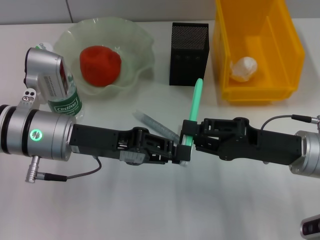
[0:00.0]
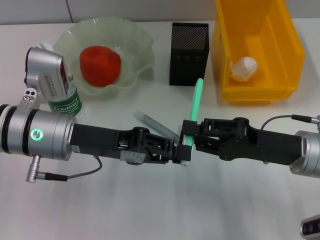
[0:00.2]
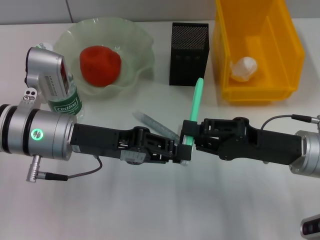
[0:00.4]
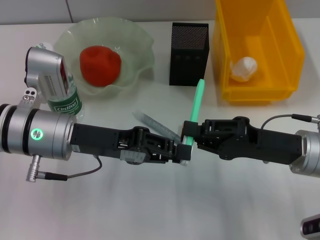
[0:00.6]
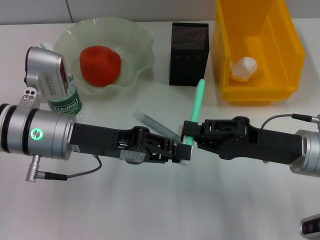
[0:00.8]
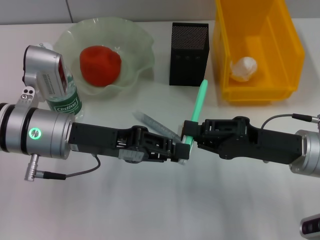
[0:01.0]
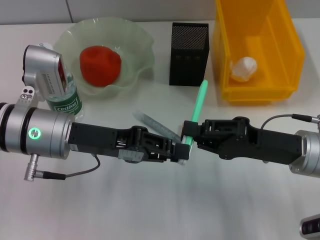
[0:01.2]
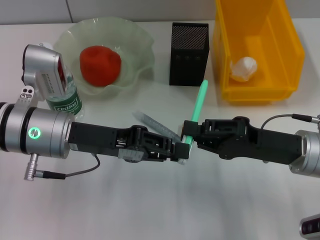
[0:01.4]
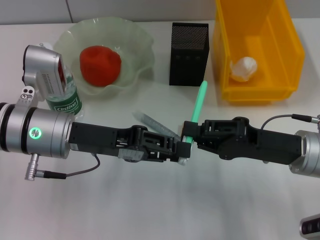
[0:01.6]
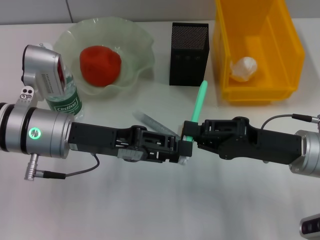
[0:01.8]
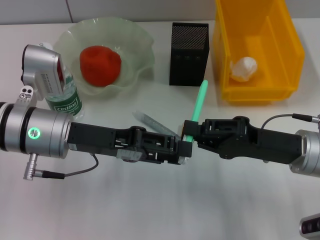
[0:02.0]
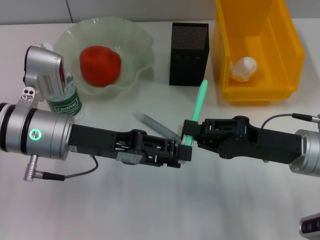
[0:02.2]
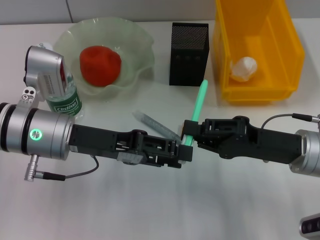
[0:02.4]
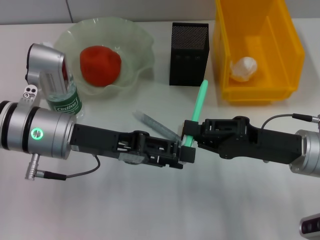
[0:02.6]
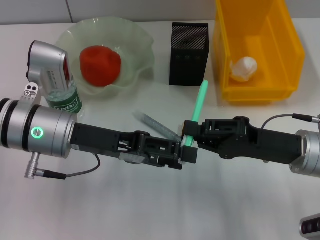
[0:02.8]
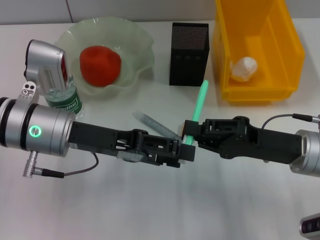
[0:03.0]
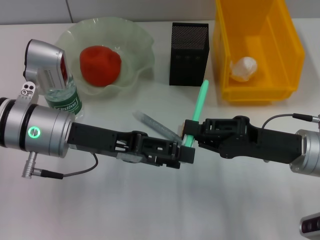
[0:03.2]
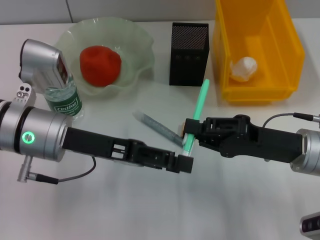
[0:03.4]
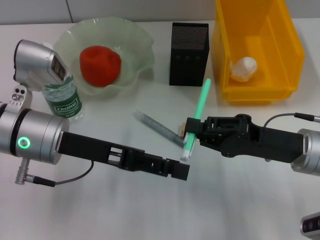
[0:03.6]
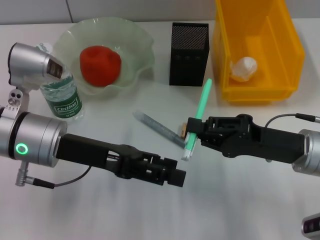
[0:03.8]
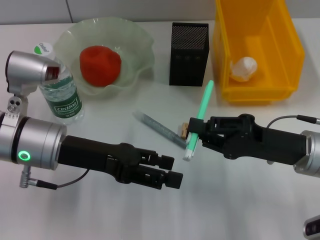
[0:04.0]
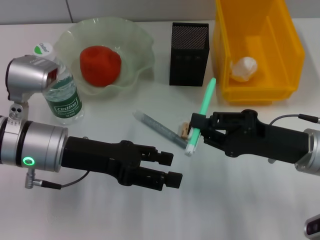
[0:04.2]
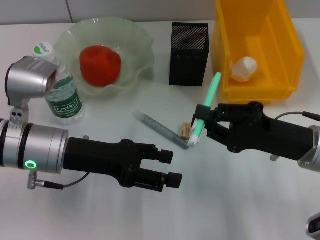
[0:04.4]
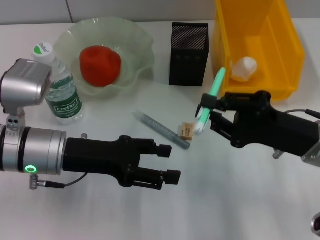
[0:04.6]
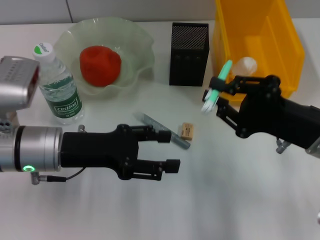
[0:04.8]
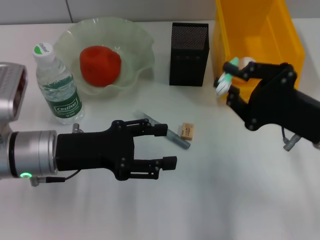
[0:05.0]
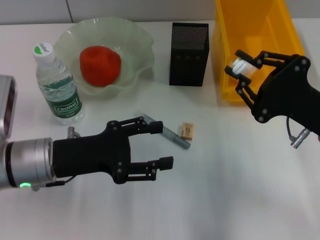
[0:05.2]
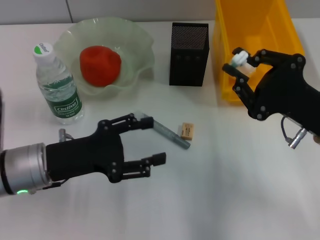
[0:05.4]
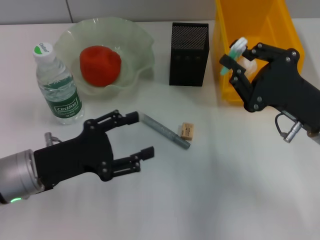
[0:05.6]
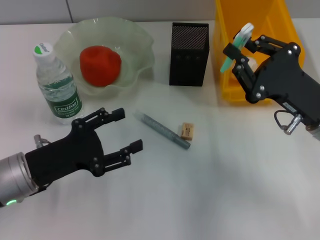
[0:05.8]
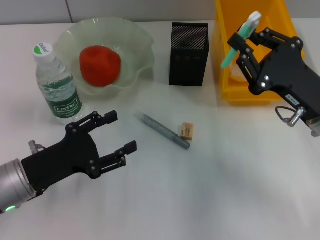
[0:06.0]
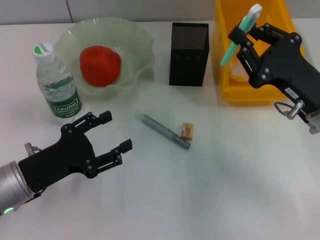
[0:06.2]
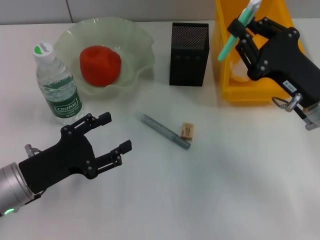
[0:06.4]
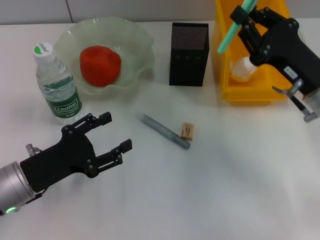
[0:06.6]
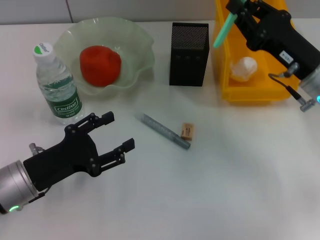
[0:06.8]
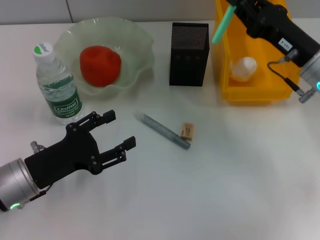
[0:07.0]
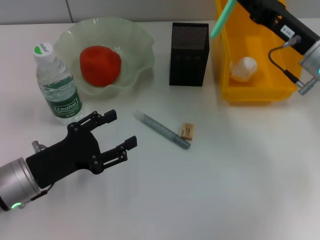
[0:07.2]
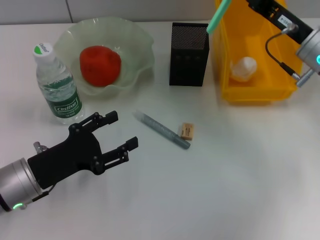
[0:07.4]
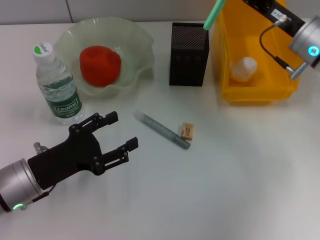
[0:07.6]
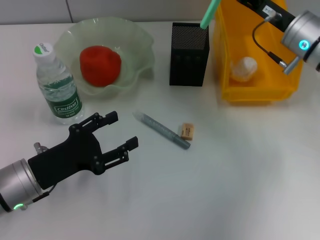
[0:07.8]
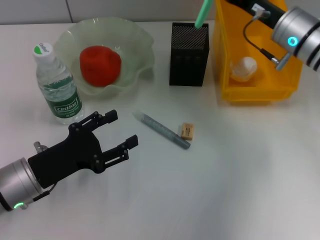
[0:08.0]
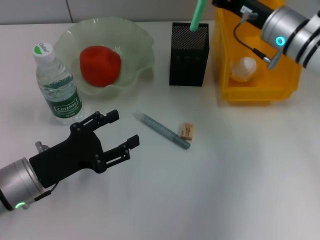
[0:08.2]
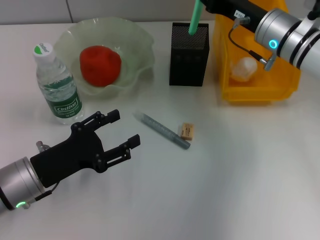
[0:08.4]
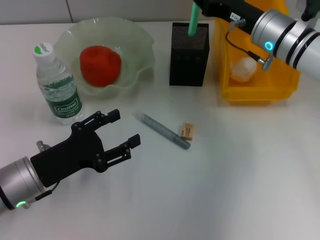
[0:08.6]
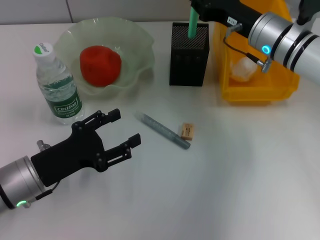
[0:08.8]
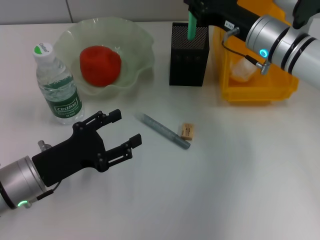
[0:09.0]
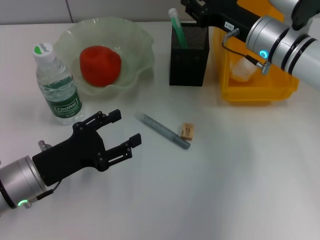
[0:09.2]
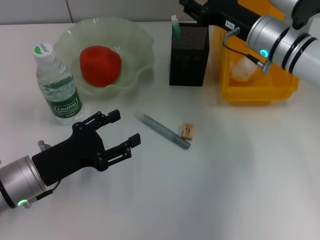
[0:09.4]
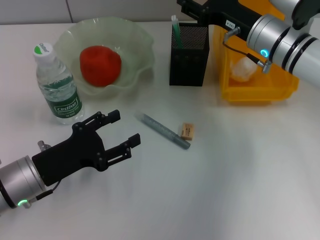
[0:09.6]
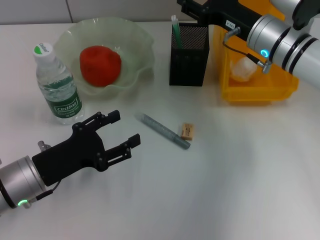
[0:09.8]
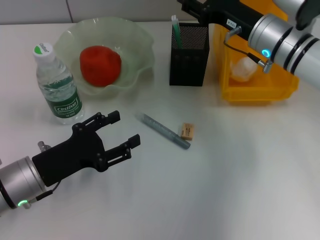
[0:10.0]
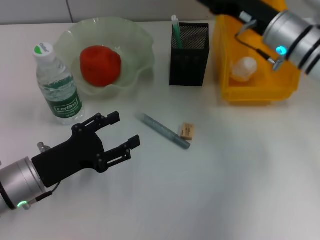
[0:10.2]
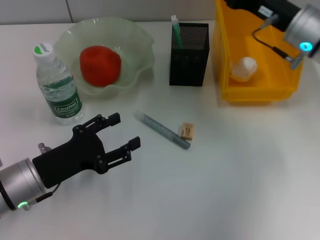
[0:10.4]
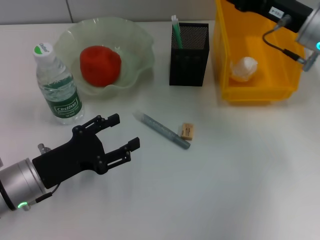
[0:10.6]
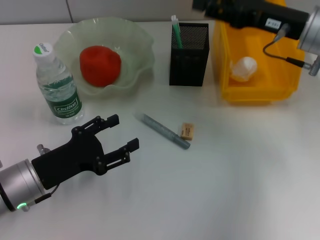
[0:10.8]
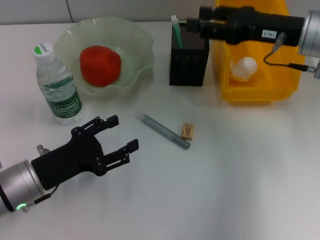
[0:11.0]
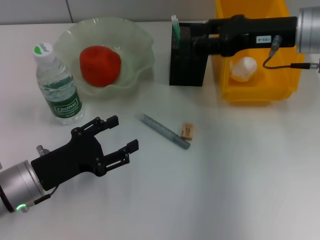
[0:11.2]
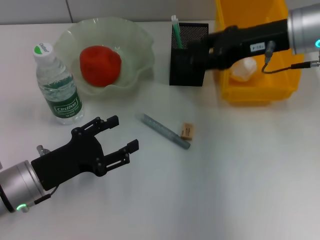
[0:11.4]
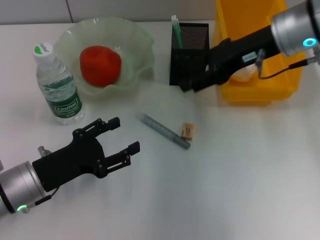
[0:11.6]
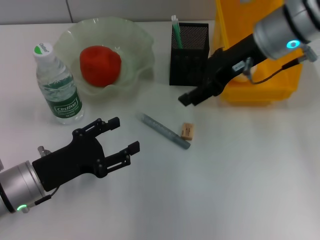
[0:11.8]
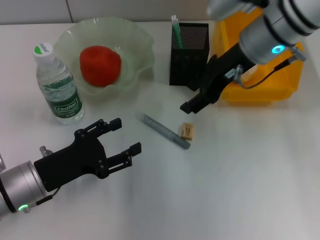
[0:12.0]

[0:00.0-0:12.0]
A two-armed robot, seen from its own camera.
Step, 0:00.0 to 0:03.0: Pass the blue utility knife from the left hand to the right hand.
Step, 0:03.4 to 0:09.6: Place the blue utility knife into the pen holder with the right hand.
0:00.0 to 0:01.6: Both grippers stay put.
0:01.6 to 0:03.0: The left gripper opens.
0:04.4 to 0:06.0: The left gripper is displaced backward, downward and to the left by approximately 10 cm.
0:06.0 to 0:07.6: The right gripper travels forward by some 10 cm.
0:07.6 to 0:09.0: The right gripper travels to the left by about 5 cm.
0:09.0 to 0:10.4: The right gripper ends up approximately 5 cm from where it was, and opens.
0:10.4 to 0:12.0: The right gripper goes about 10 cm to the left.

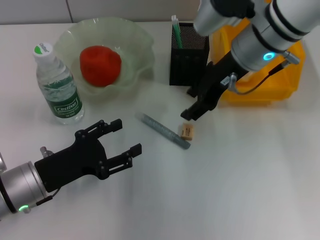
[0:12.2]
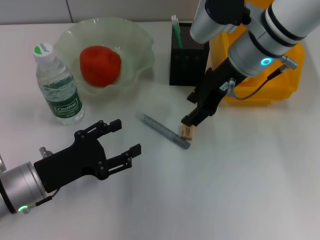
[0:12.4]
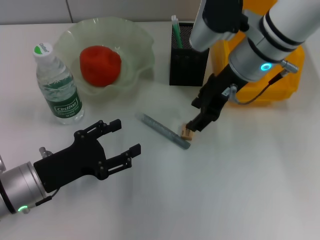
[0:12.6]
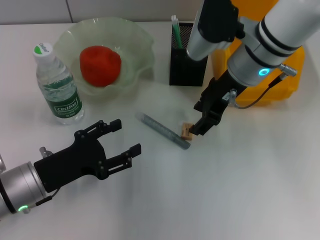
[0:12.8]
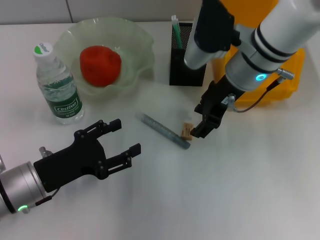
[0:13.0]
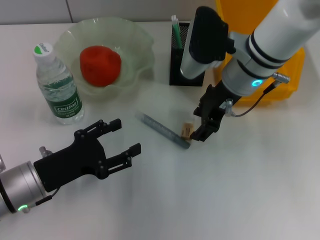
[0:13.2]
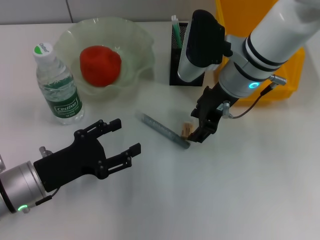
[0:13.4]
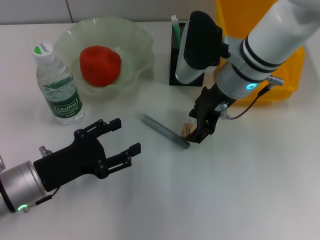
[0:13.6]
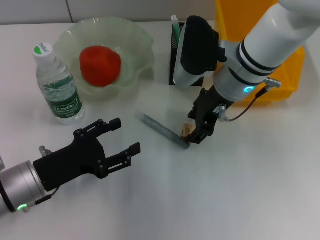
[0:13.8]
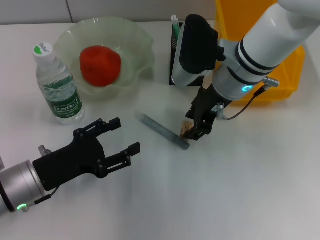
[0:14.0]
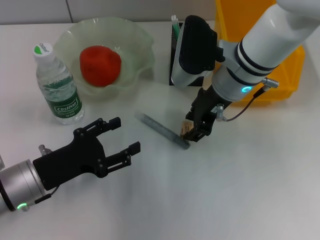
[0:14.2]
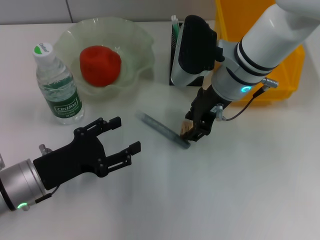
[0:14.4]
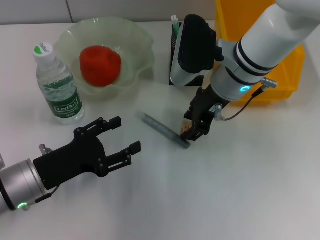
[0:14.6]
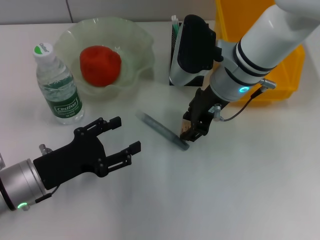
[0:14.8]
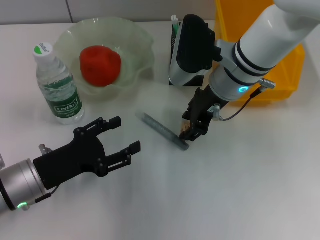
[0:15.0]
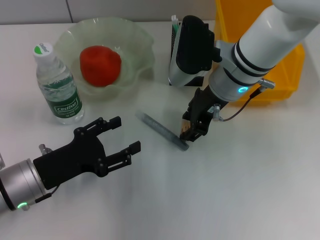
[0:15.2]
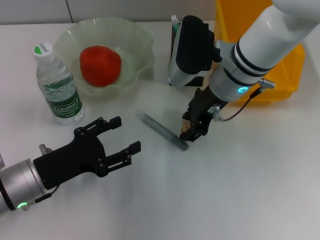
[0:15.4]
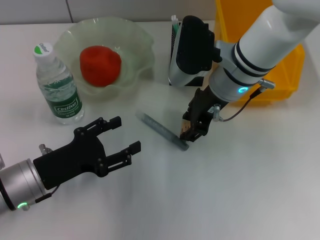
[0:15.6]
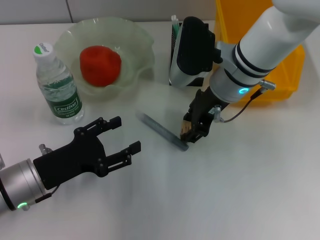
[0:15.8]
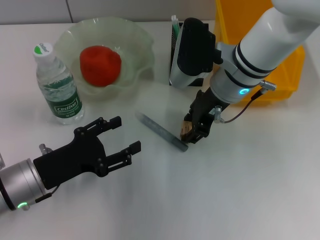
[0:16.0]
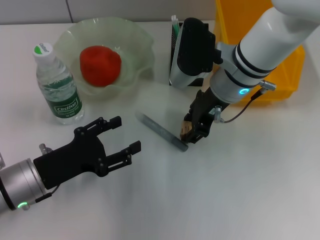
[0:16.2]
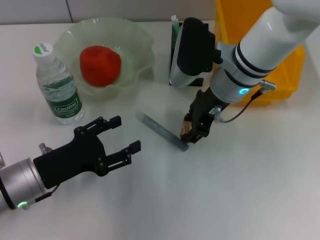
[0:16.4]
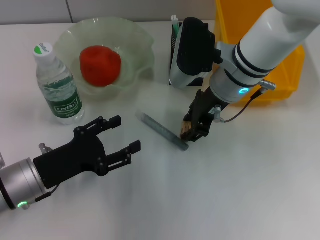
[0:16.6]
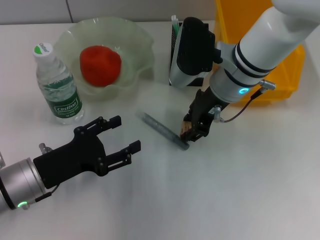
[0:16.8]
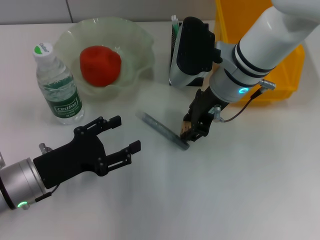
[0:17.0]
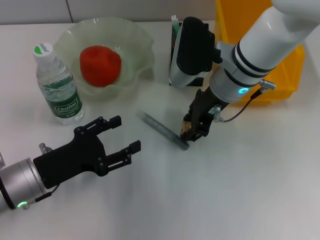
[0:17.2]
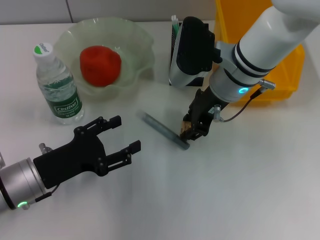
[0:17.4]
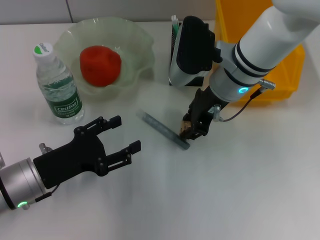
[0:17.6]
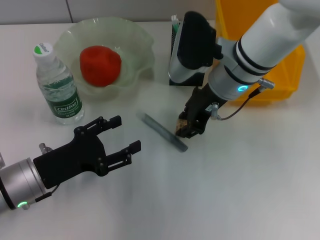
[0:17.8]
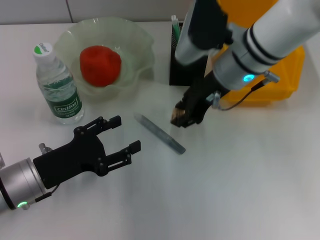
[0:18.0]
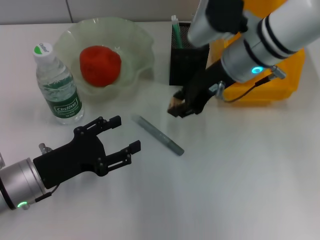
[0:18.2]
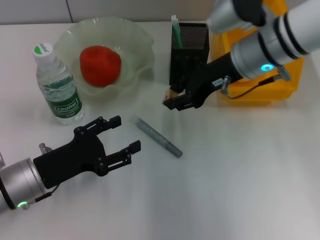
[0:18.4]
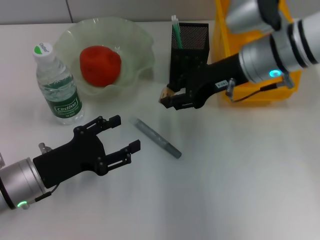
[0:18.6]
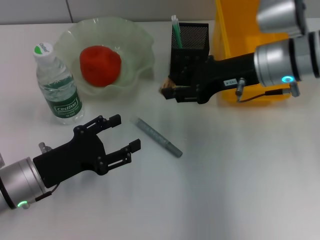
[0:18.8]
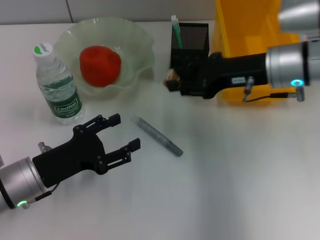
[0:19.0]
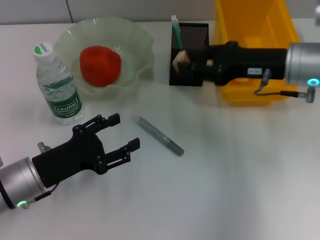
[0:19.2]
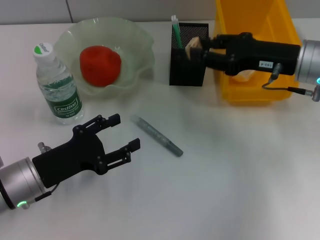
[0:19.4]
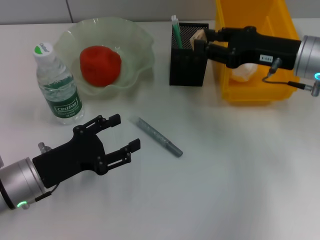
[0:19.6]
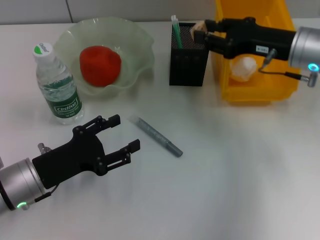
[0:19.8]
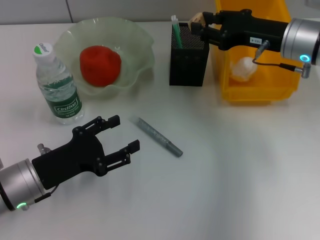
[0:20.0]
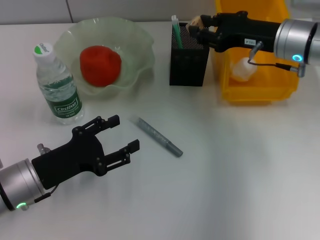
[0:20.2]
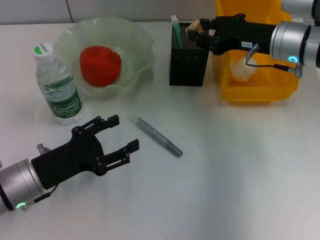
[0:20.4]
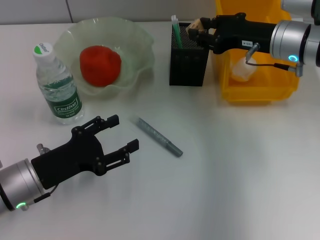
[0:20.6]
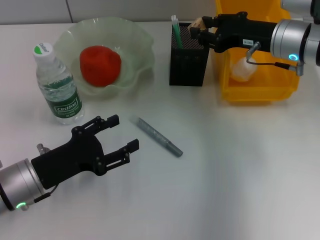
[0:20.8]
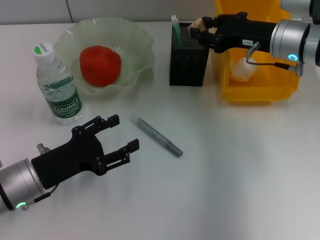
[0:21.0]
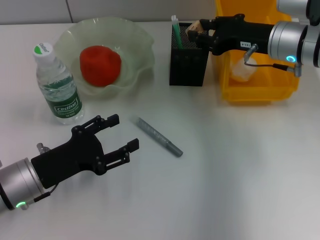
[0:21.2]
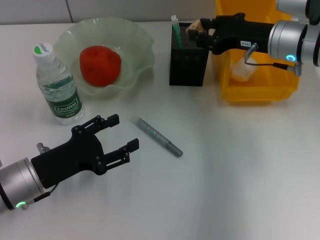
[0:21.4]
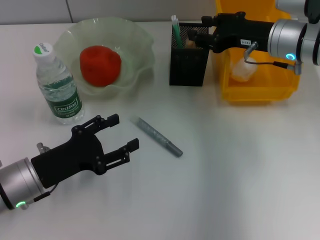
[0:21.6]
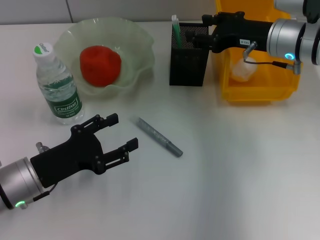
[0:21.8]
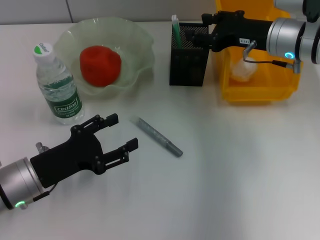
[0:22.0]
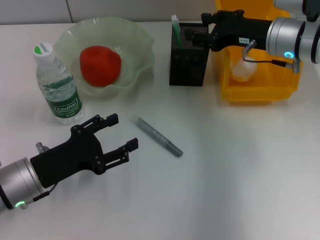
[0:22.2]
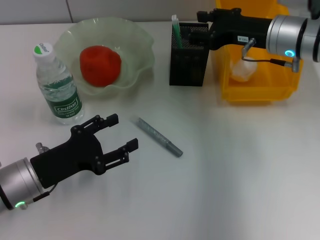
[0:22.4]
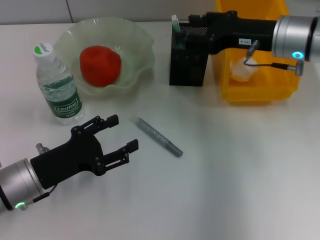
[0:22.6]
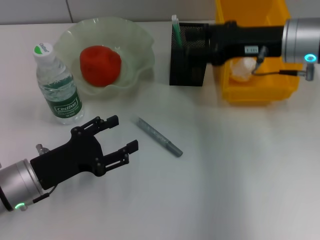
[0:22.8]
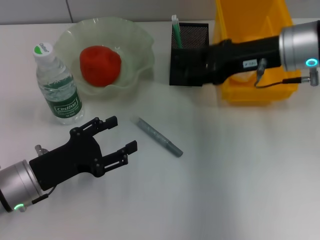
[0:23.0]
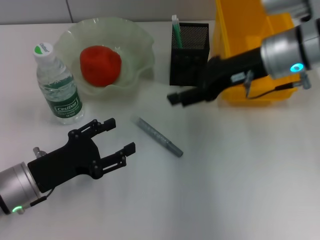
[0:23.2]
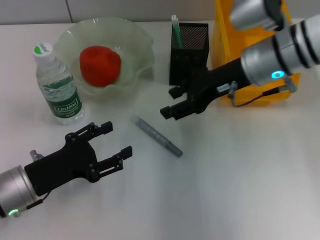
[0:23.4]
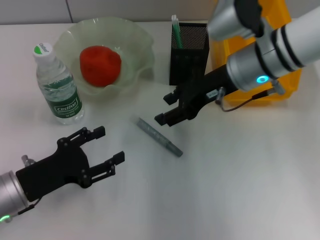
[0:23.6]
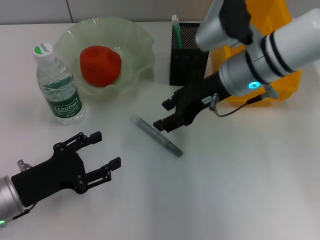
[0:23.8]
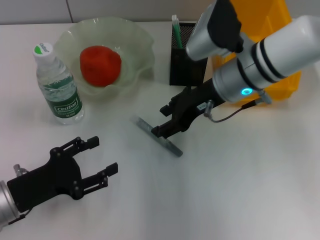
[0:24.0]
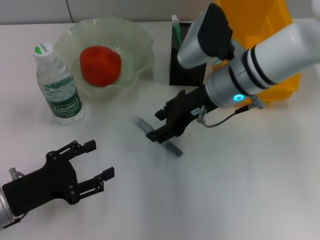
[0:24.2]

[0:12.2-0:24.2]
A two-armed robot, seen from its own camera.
Step, 0:12.2 to 0:17.4: Grab the eraser with the right hand.
Step, 0:17.6 to 0:22.0: Put the eraser into the pen holder with the right hand.
0:12.2 to 0:13.8: The right gripper ends up approximately 5 cm from where it was.
0:13.8 to 0:16.6: Both grippers stay put.
0:16.6 to 0:18.2: The grippers move only a little.
0:18.2 to 0:19.8: The right gripper moves to the right, some 10 cm.
0:19.8 to 0:22.6: There are only small adjustments of the grippers.
0:22.6 to 0:24.2: The right gripper is displaced to the left by some 10 cm. The left gripper shifts by approximately 5 cm.
